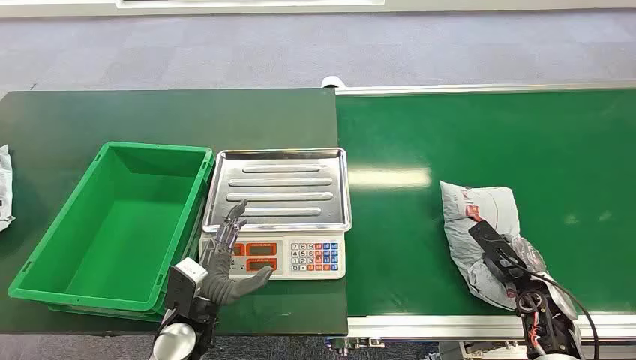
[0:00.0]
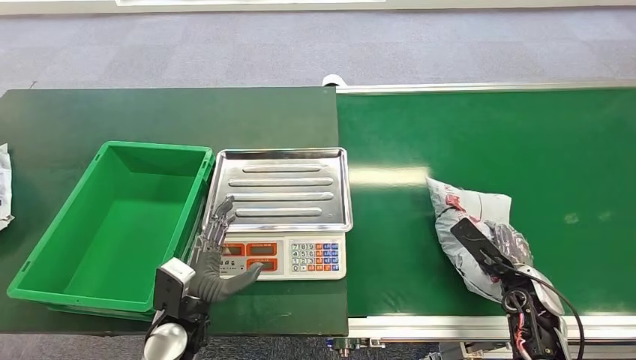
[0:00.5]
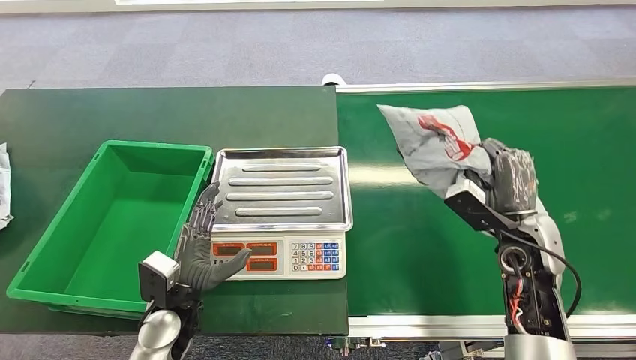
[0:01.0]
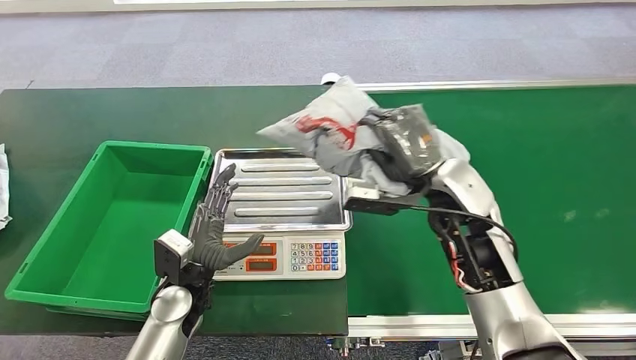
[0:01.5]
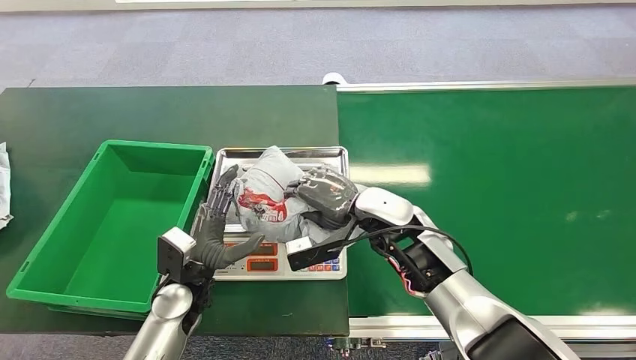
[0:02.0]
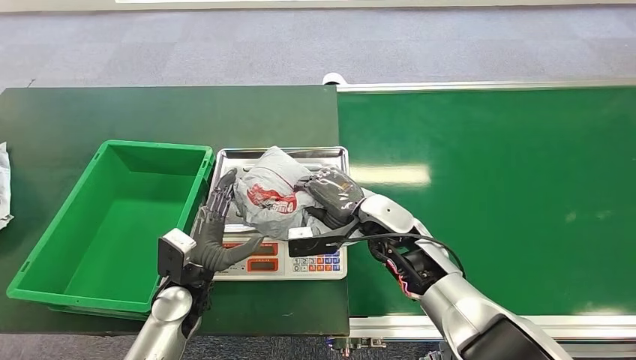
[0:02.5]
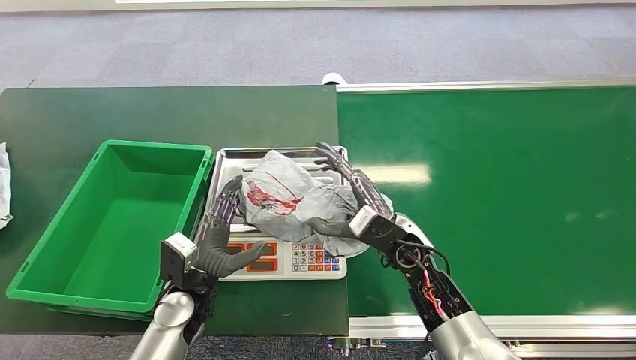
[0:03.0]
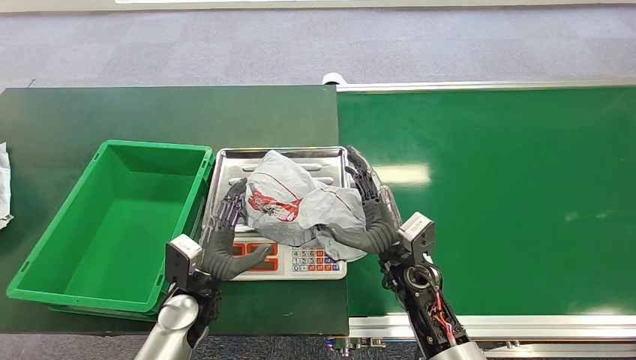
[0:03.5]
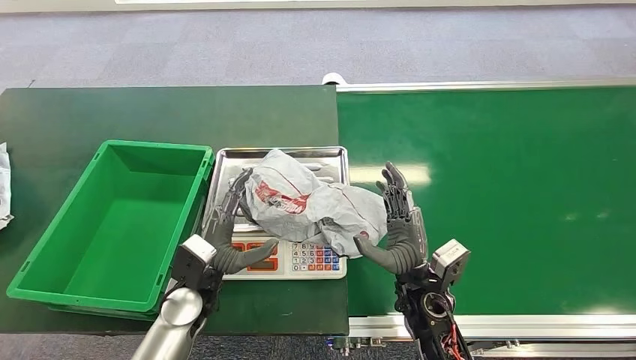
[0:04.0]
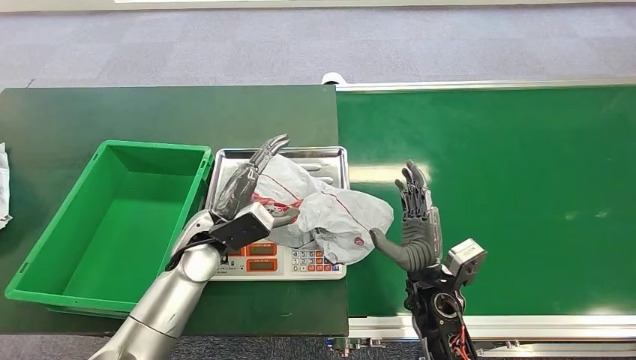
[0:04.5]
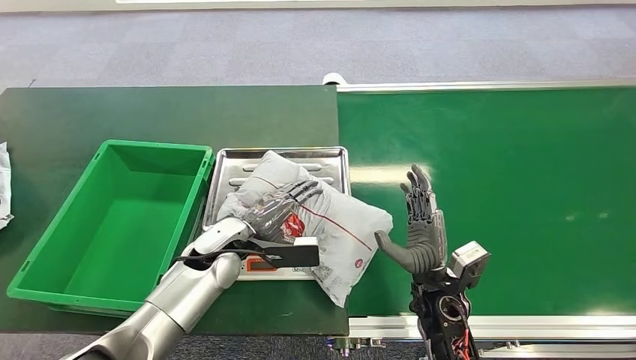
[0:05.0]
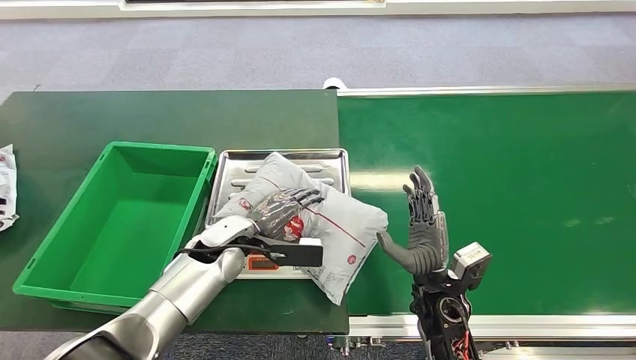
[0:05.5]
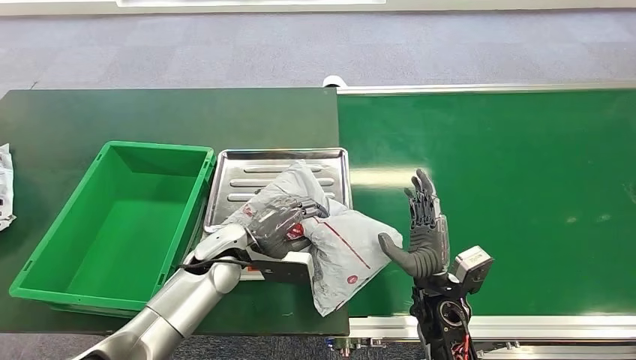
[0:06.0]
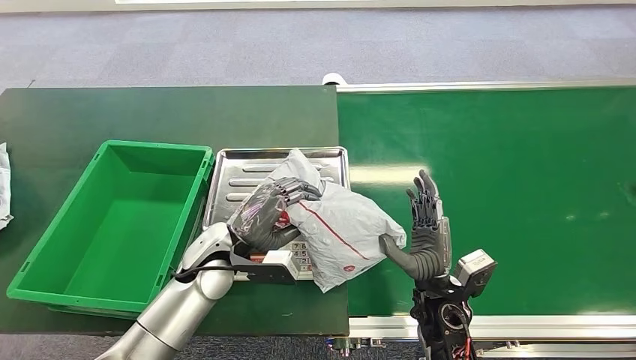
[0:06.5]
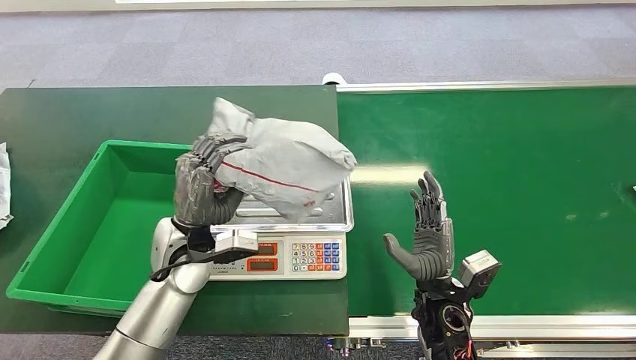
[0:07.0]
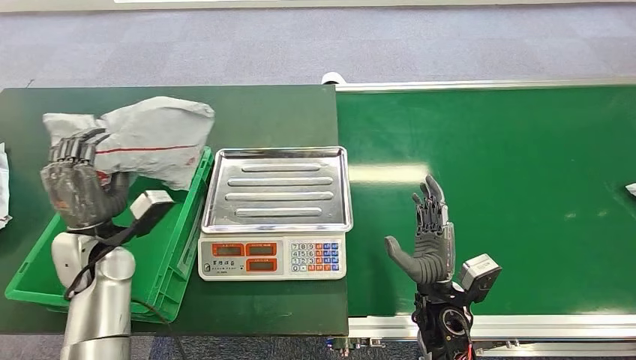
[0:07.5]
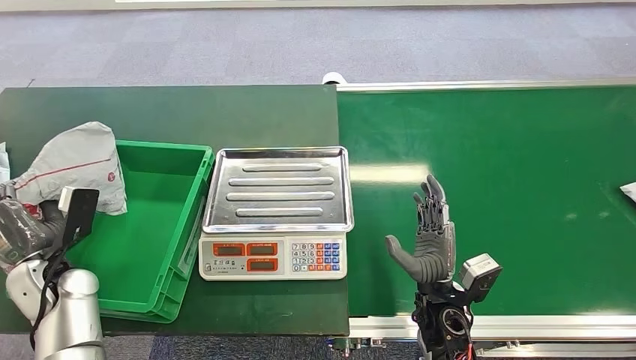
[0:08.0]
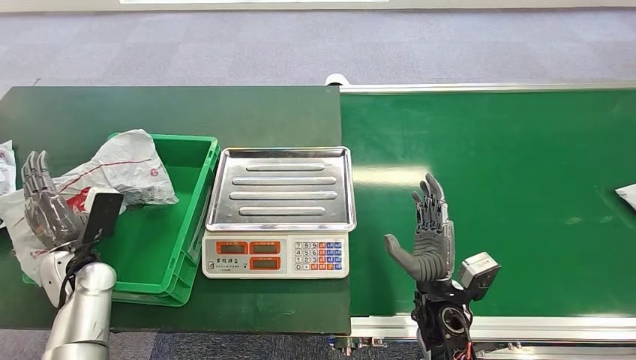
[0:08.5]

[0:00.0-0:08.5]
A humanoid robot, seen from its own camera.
Step, 0:00.0 to 0:00.5: Pick up the package from the conveyor belt.
Step, 0:01.5 to 0:02.5: Place the package onto the inbound machine.
Step, 0:06.5 to 0:07.0: Pick up the package from the inbound machine.
Step, 0:08.0 to 0:08.5: Place the package into the parcel locker.
0:02.0 to 0:04.0: The right hand travels backward, downward and to the right by some 15 cm.
0:04.0 to 0:06.5: The left hand heads forward, covering about 5 cm.

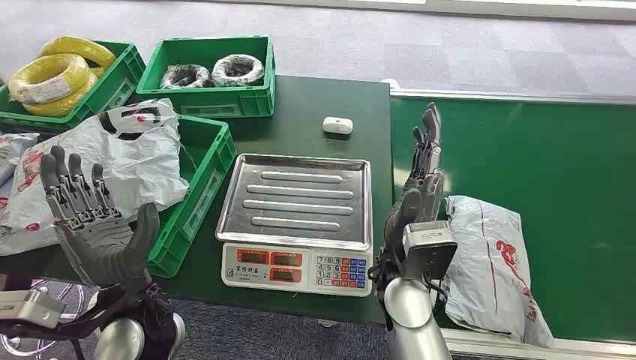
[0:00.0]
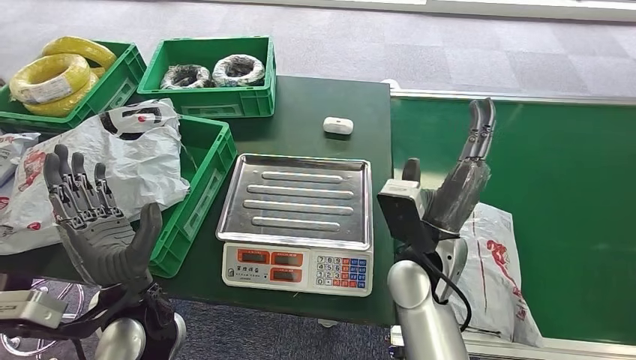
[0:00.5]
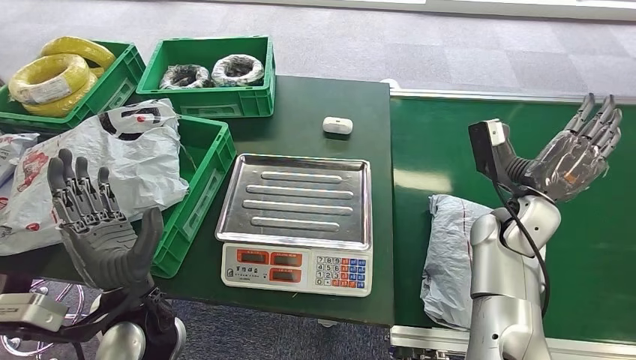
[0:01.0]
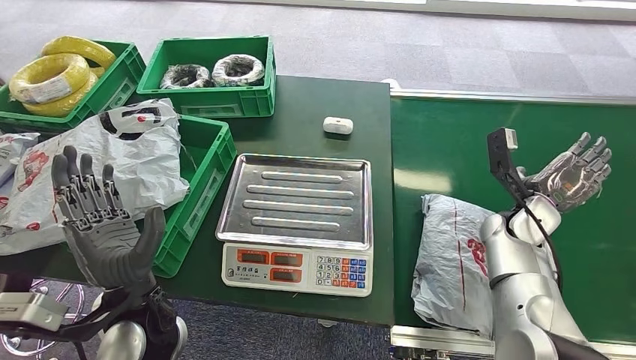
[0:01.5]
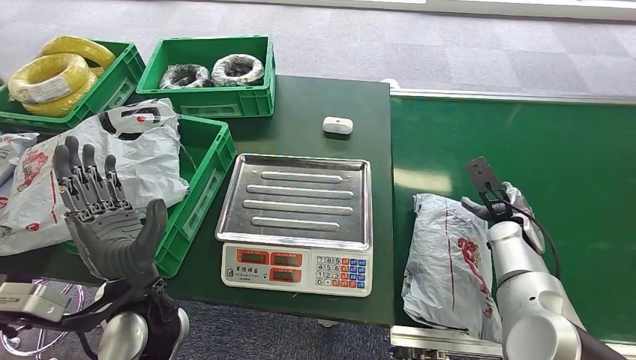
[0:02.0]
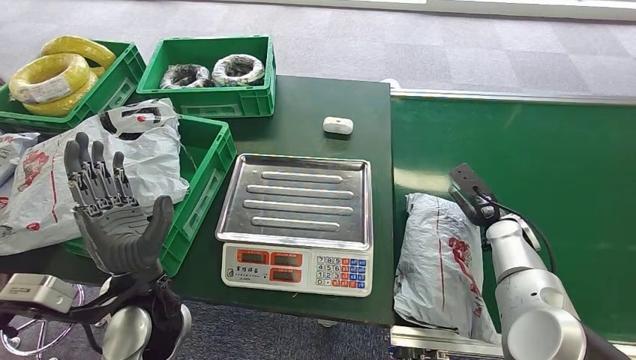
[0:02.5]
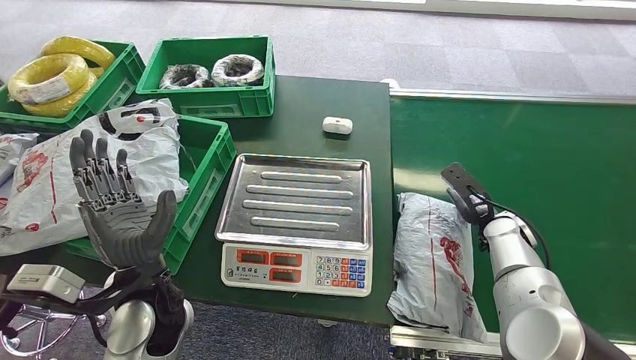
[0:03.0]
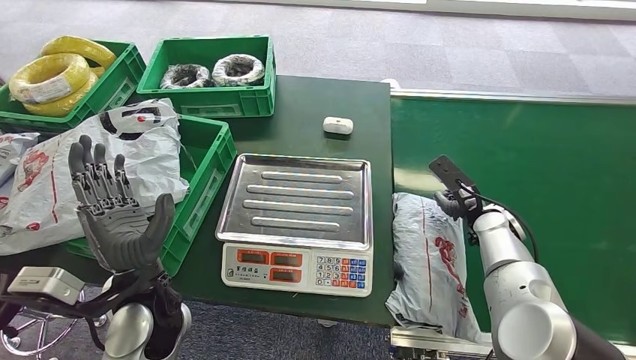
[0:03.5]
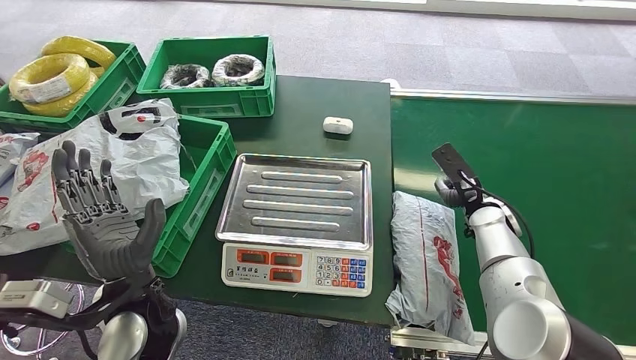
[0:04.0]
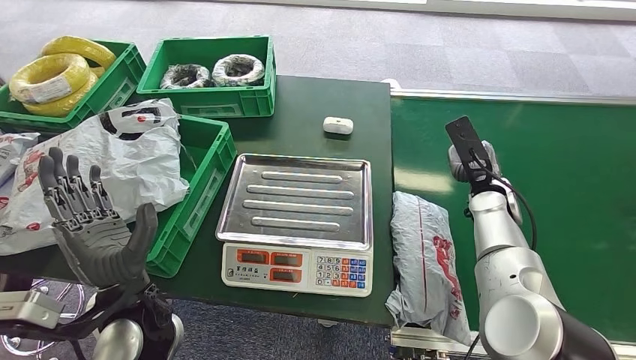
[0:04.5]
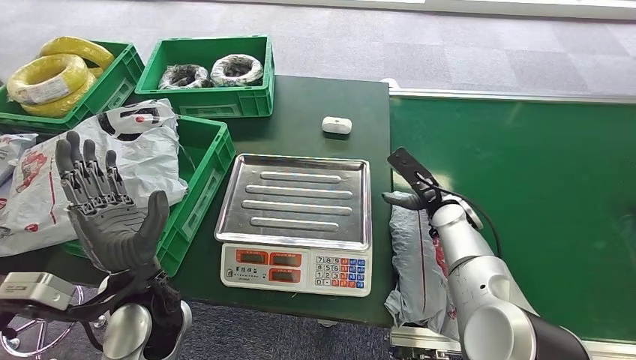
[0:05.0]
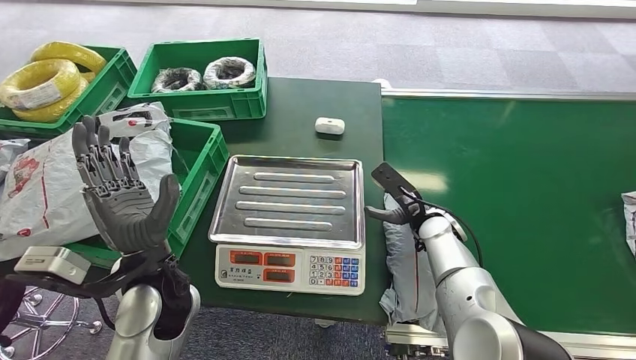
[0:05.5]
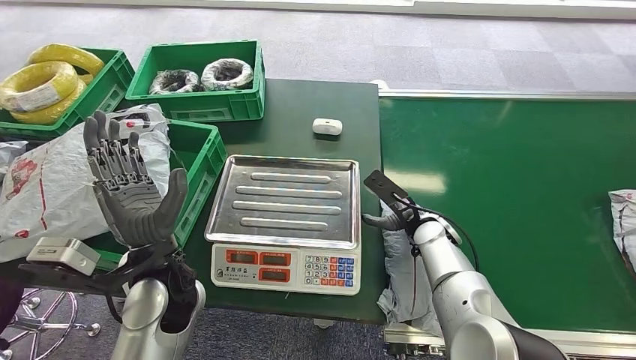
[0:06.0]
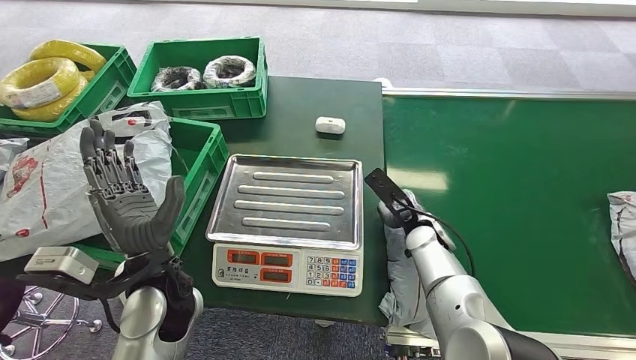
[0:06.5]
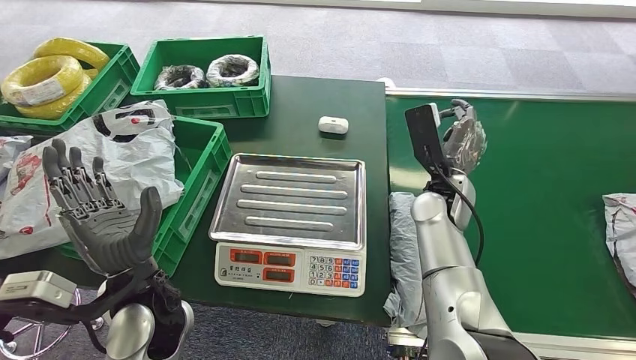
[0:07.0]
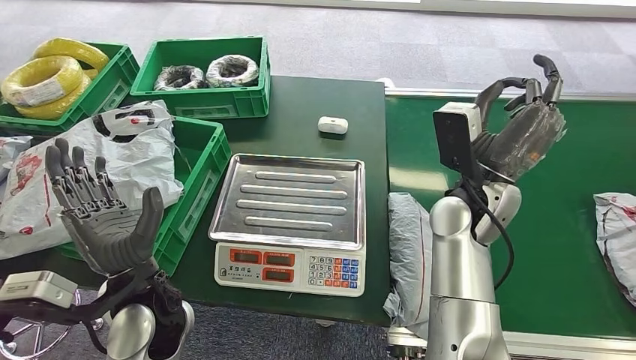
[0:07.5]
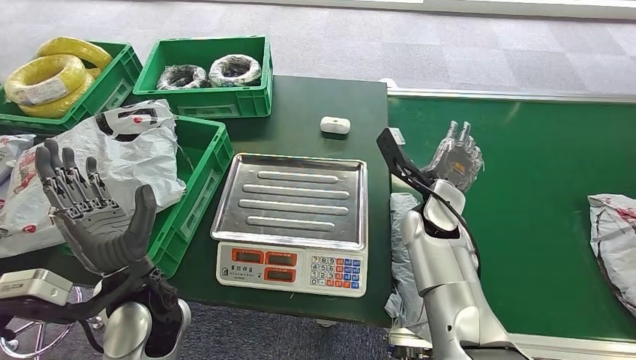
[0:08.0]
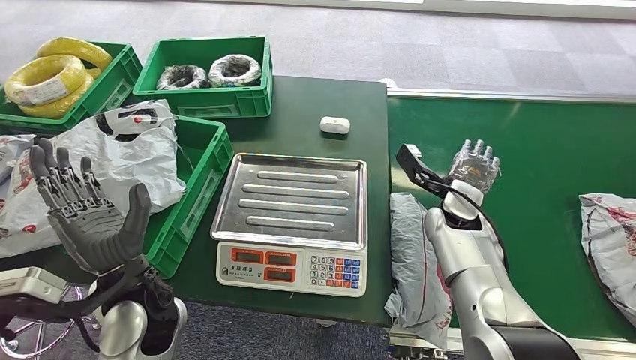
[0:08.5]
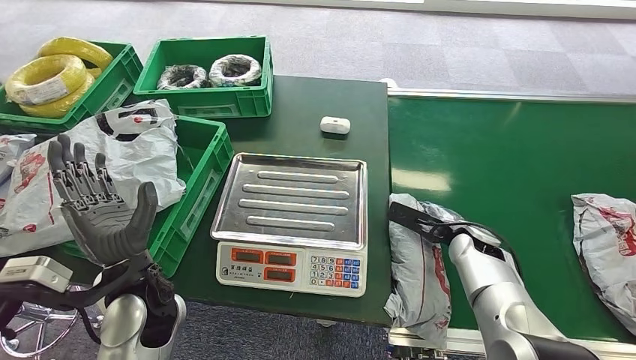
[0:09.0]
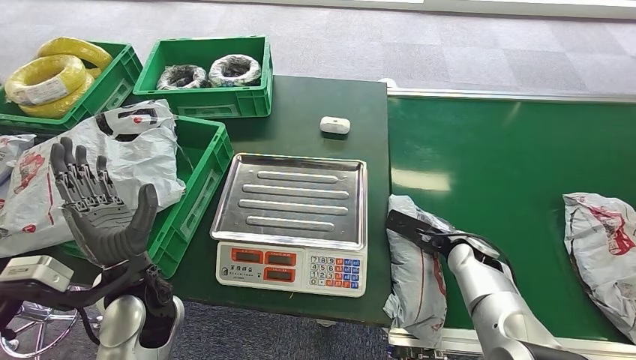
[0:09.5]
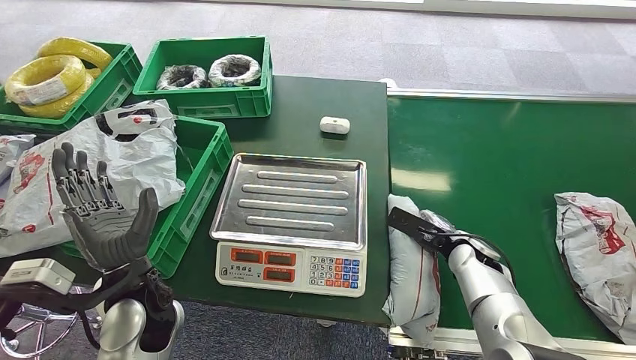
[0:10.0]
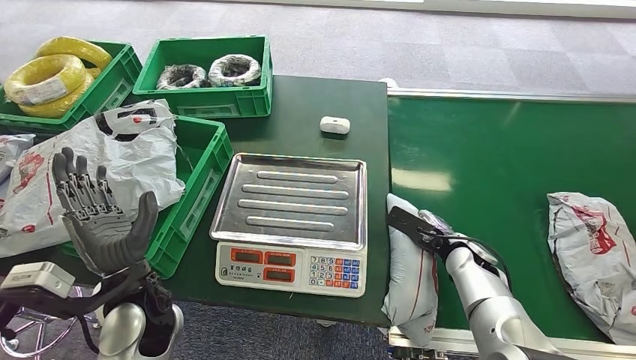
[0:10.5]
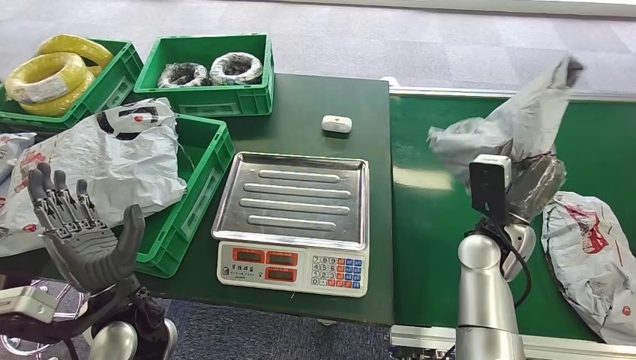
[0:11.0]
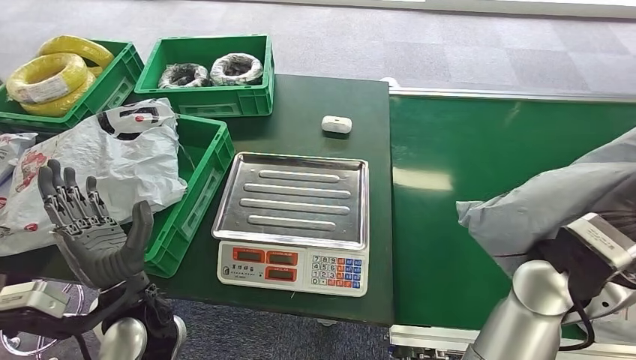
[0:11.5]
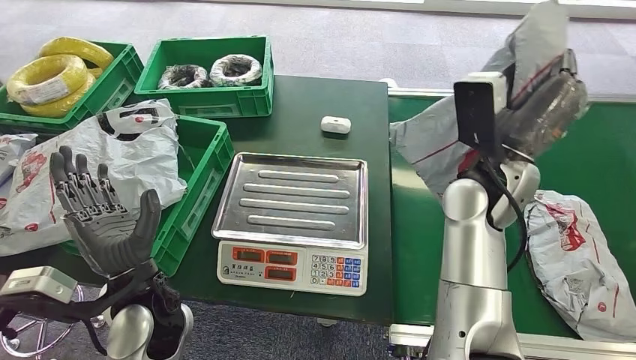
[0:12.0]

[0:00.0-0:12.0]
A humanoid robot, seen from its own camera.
Step, 0:00.0 to 0:11.5: Pick up the package from the conveyor belt.
0:02.0 to 0:04.0: The right hand changes place by approximately 5 cm.
0:08.0 to 0:10.0: The right hand moves downward and to the right, some 15 cm.
